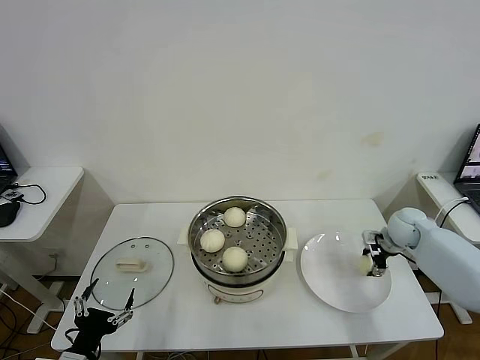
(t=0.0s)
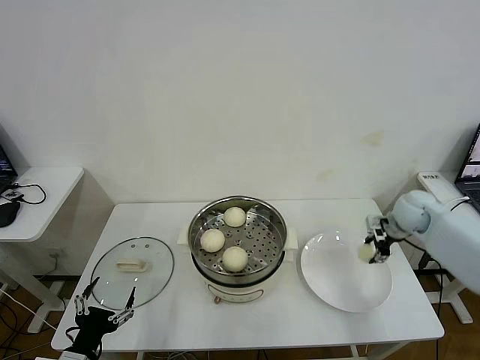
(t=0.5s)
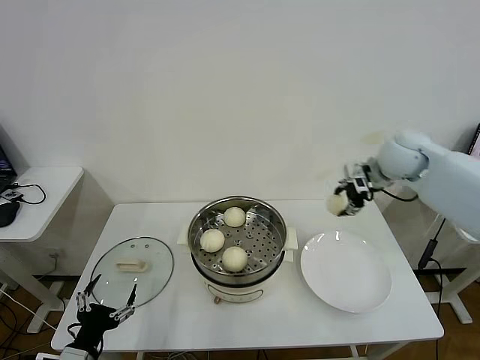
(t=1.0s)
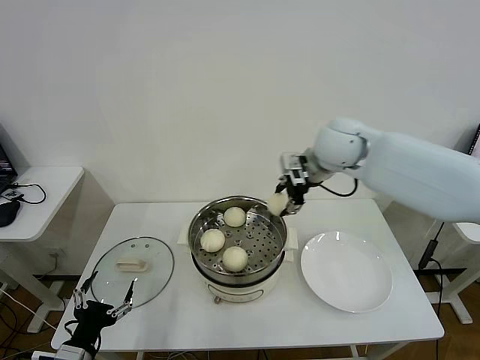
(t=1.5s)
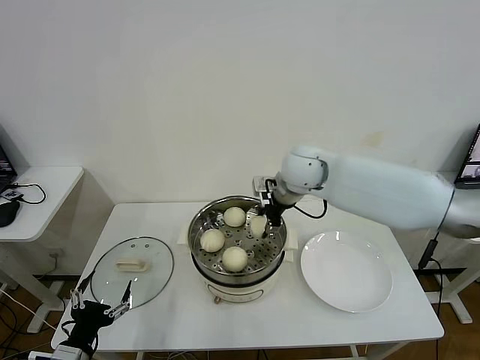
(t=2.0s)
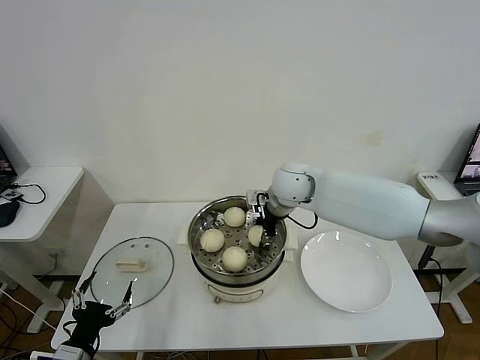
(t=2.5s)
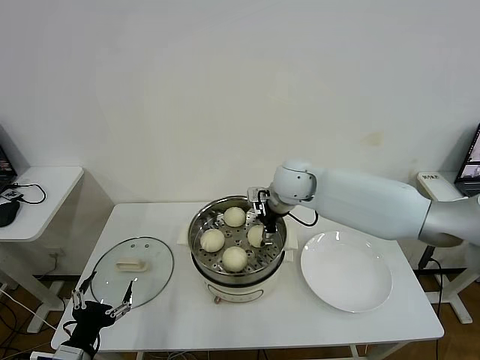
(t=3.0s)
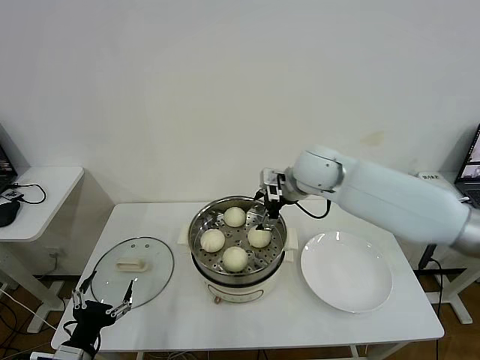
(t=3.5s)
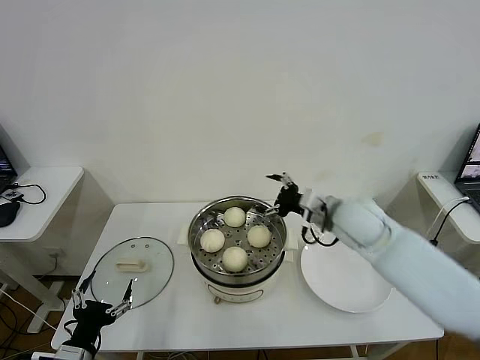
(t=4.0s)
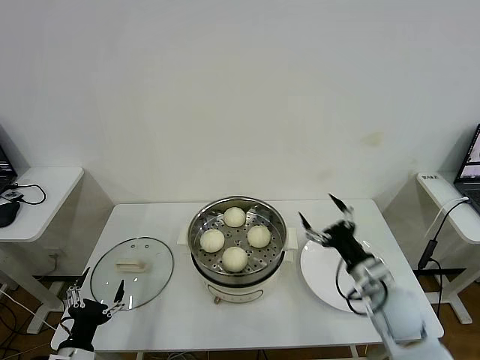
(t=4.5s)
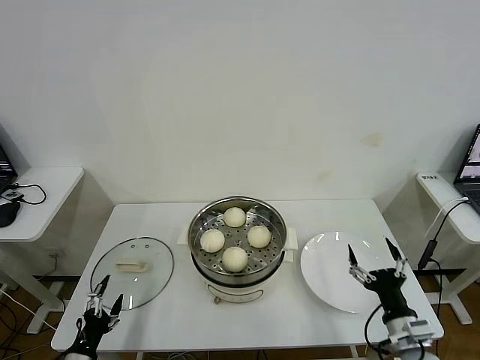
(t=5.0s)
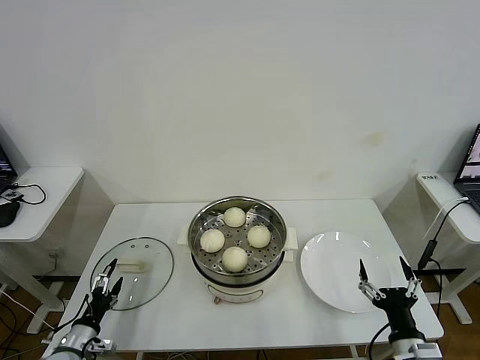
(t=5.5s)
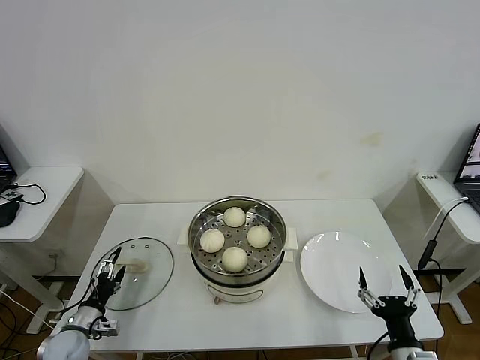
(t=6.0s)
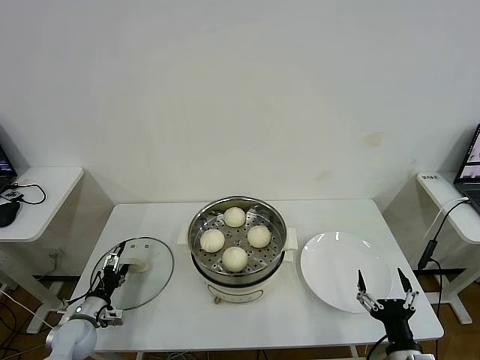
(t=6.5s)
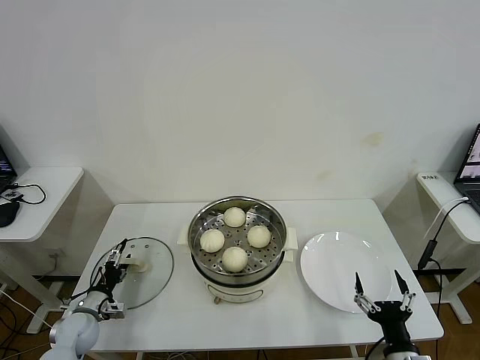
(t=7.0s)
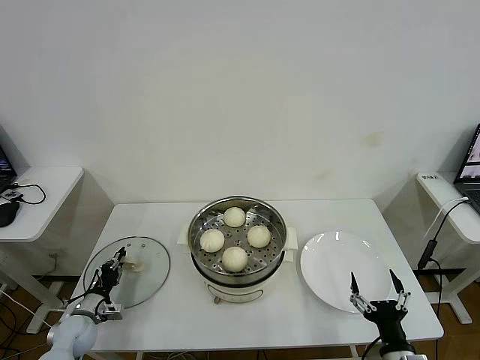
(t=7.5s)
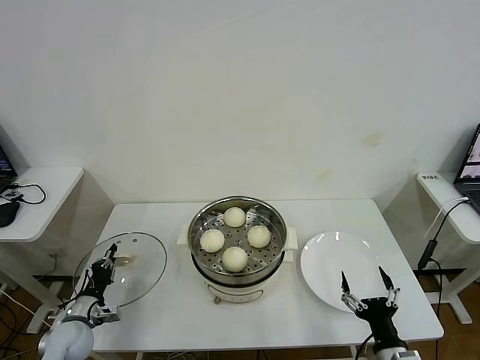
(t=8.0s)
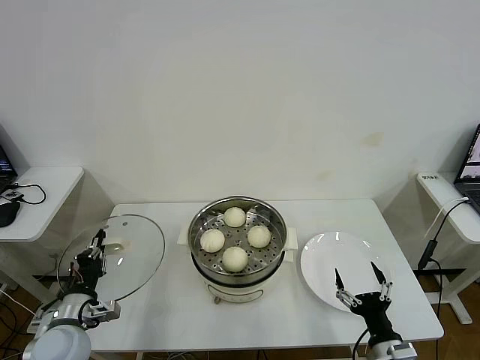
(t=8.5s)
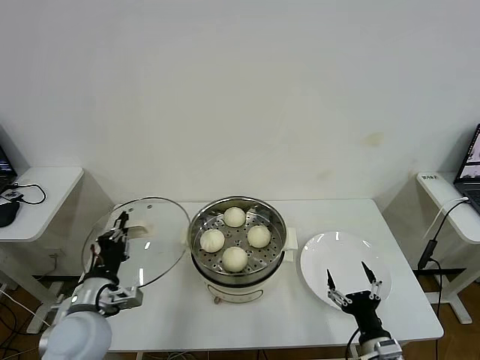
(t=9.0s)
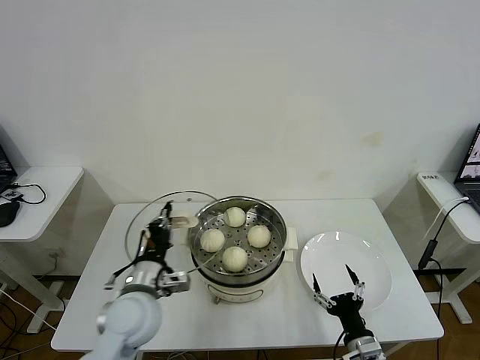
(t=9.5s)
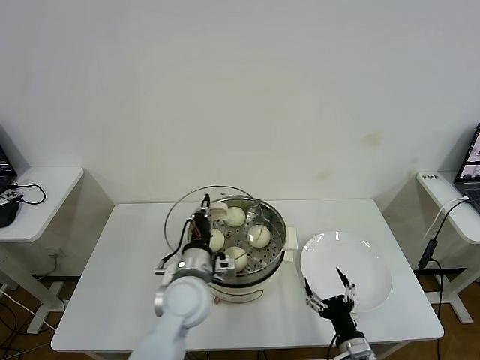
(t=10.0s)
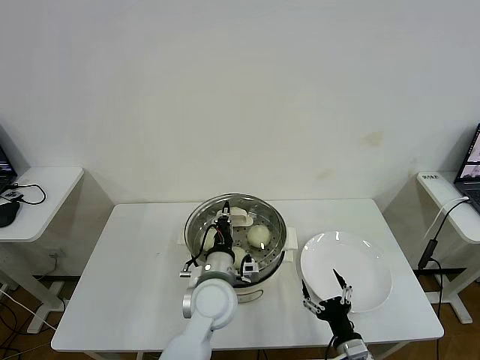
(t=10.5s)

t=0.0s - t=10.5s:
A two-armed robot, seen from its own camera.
Task of the whole recording: take steamed baozi put them in steamer then cover it.
Step, t=0.5s - t=3.0s: Place the baozi on the steamer with right gripper.
Step, t=3.5s - t=7.5s: Grasp the pot lid with left gripper.
t=0.0s - t=2.0s: The right gripper moves to the left and upward, roughly 35 cm.
t=2.0s - t=4.0s: The right gripper is displaced to the right, backward and downward by about 15 cm, and opens up.
t=4.0s - t=6.5s: The left gripper goes about 20 cm forward, downward and to the left; the right gripper moves backward and downward, some 35 cm.
t=6.5s - t=8.5s: The left gripper moves upward, to the right and backward, roughly 15 cm, and closes.
t=8.5s - t=10.5s: The right gripper is displaced to the left by about 5 cm. The left gripper is displaced to the right by approximately 30 cm.

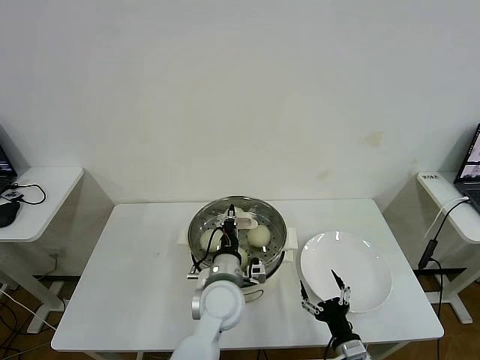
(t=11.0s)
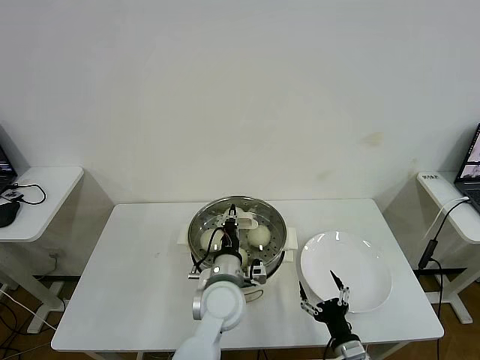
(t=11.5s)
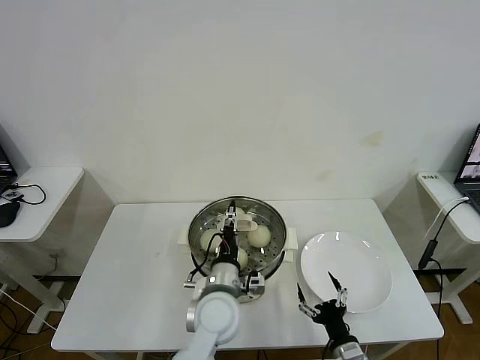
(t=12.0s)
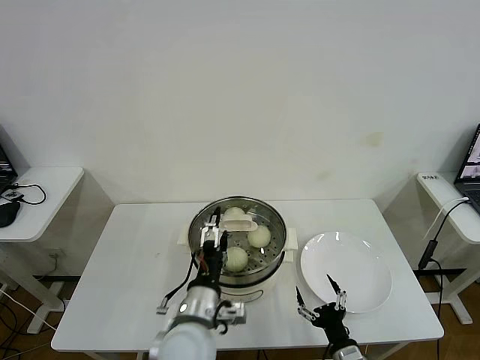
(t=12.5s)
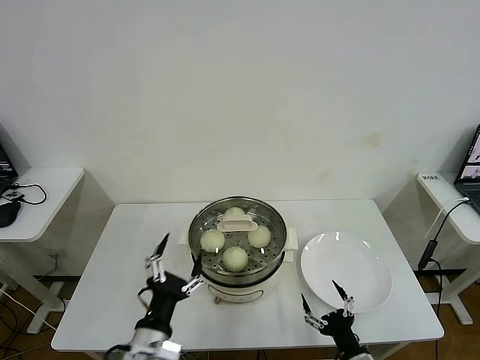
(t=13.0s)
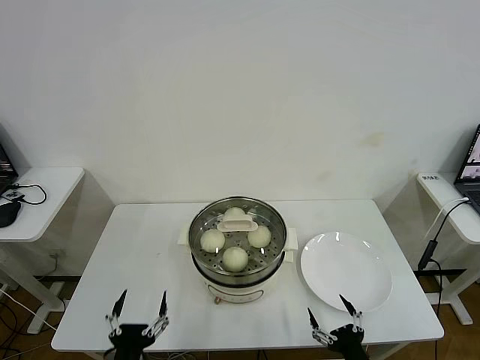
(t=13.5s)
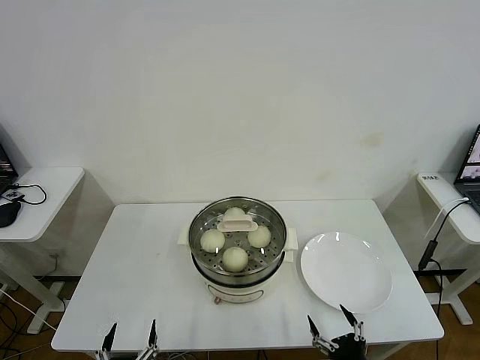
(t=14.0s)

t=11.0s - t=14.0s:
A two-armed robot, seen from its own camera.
Task of the whole recording: take steamed baozi put them in steamer then cover it.
t=11.0s - t=12.5s: The left gripper travels backward by roughly 10 cm, and opens up.
t=12.5s - t=14.0s: The left gripper shifts some 25 cm backward, to the left and downward, while the right gripper shifts some 5 cm backward.
